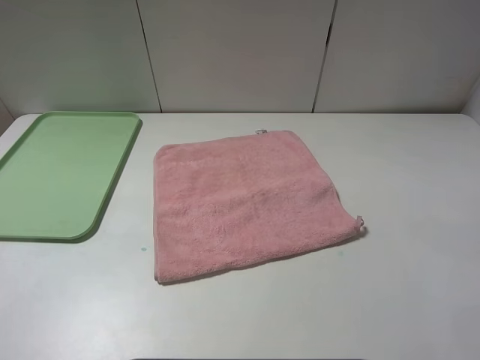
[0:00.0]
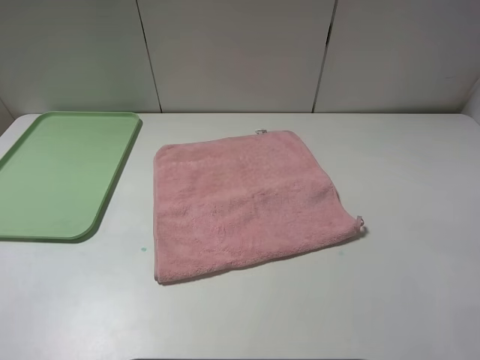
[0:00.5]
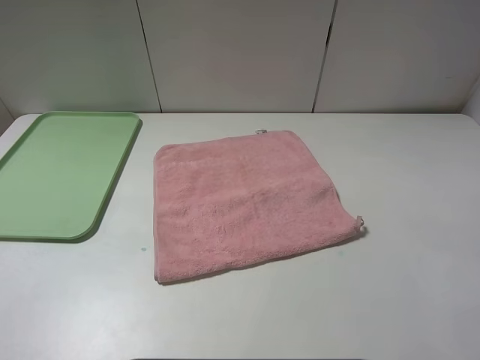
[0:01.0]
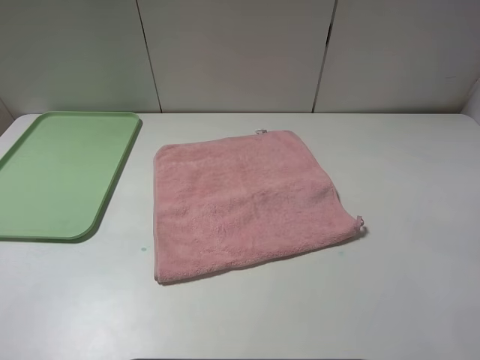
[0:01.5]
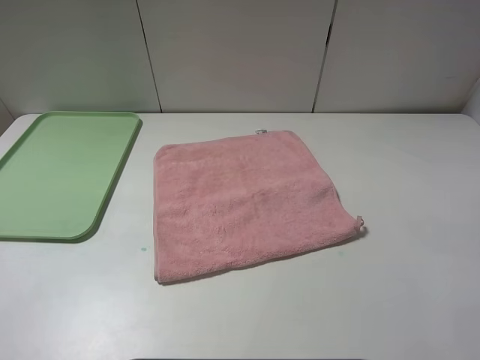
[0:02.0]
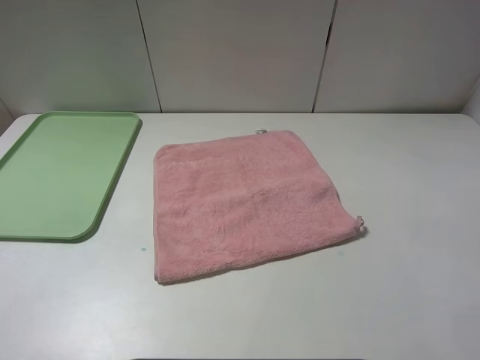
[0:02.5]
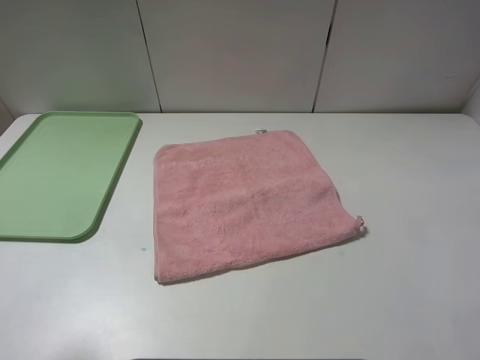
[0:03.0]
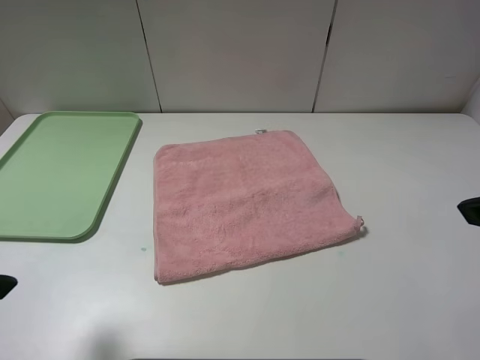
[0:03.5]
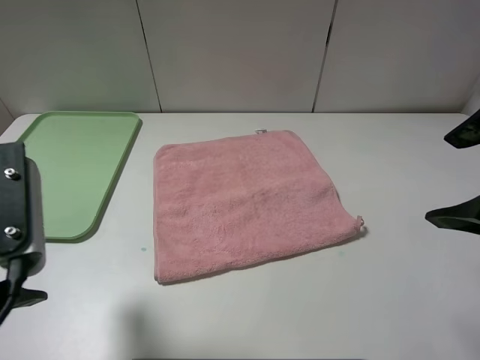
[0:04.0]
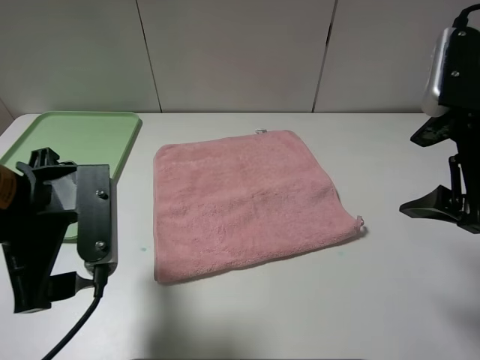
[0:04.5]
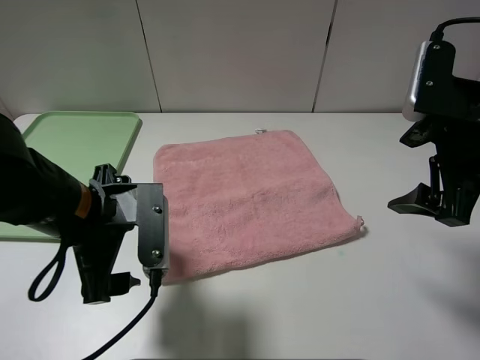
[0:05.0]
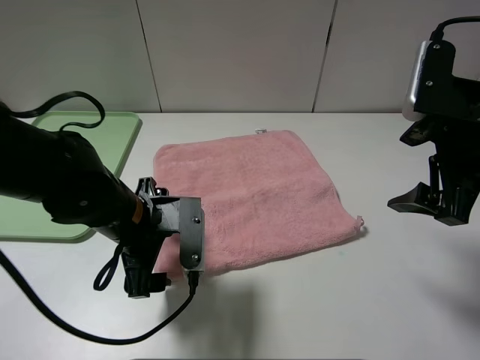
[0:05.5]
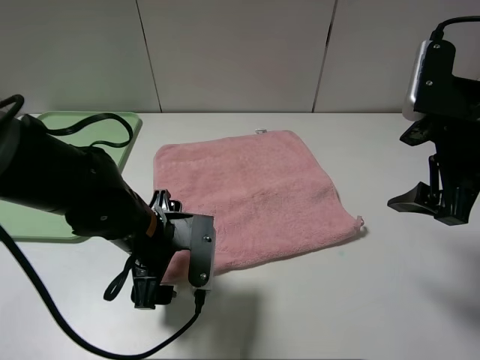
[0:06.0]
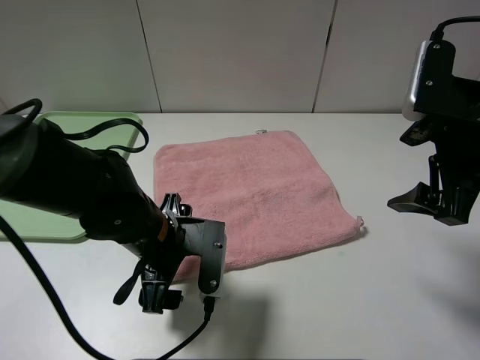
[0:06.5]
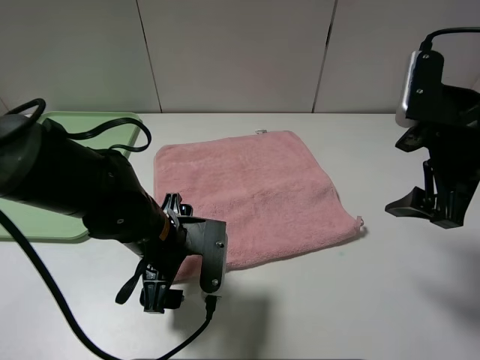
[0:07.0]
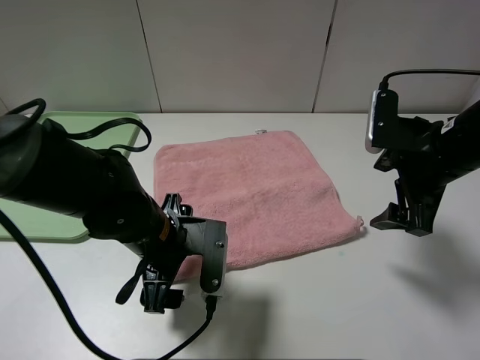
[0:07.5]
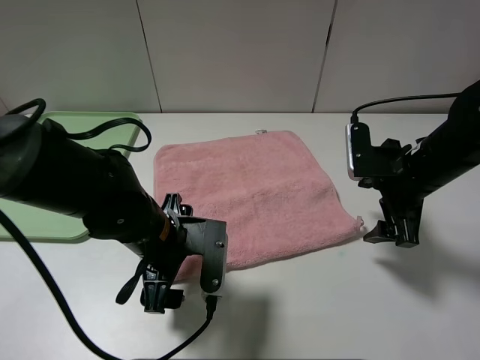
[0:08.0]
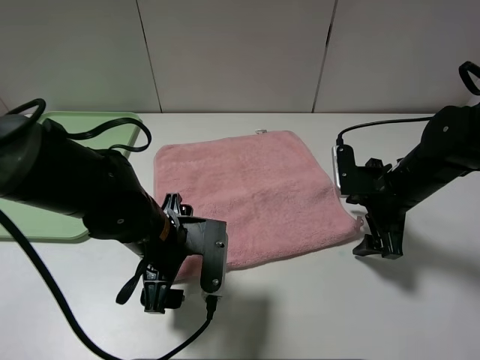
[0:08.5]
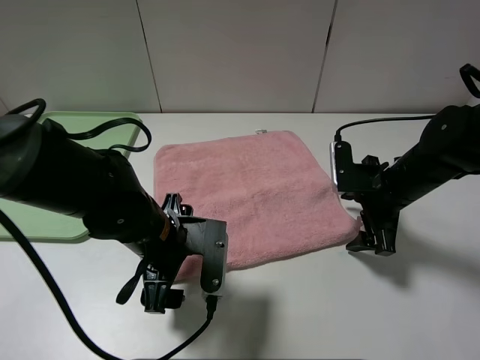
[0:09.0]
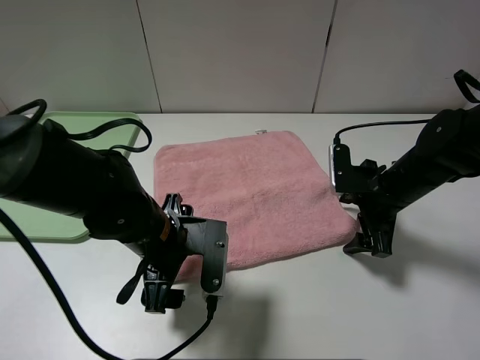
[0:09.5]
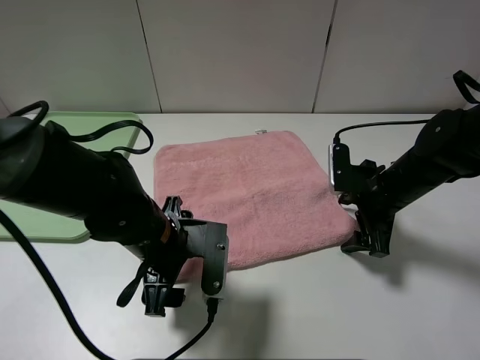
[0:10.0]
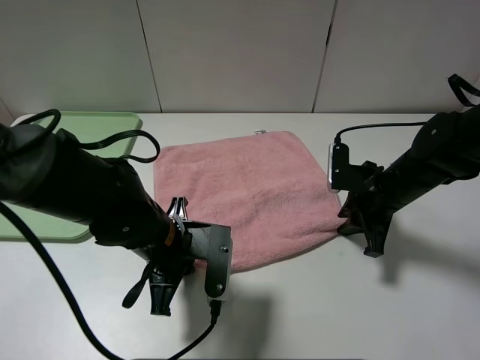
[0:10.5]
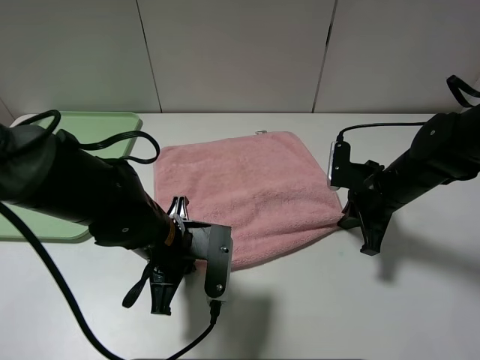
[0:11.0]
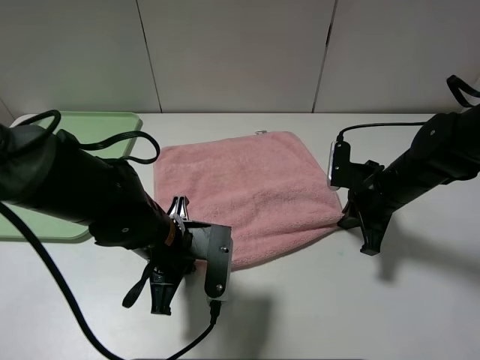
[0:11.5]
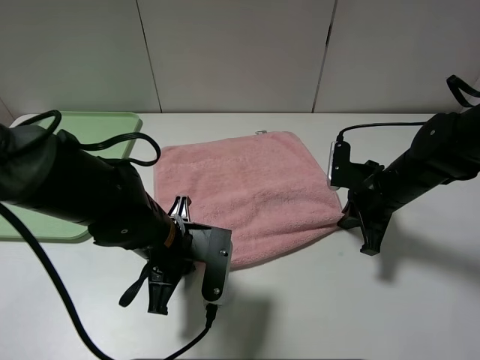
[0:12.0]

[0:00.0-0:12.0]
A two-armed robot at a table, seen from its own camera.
0:00.0 to 0:02.0: Both grippers stay about where they are.
0:02.0 to 0:04.0: The left gripper is displaced forward and to the right by approximately 15 cm, while the right gripper is displaced forward by some 15 cm.
0:04.0 to 0:06.0: The right gripper is displaced forward by about 5 cm. Meanwhile the left gripper is displaced downward, to the right and forward by roughly 20 cm.
0:06.0 to 0:08.0: The right gripper goes approximately 10 cm downward and forward.
0:08.0 to 0:10.0: The right gripper heads downward, covering about 5 cm.
0:10.0 to 0:12.0: The right gripper closes its fingers. The left gripper closes.

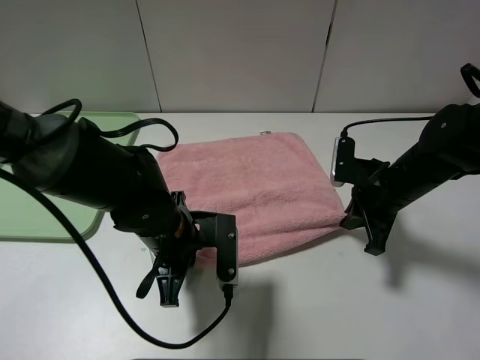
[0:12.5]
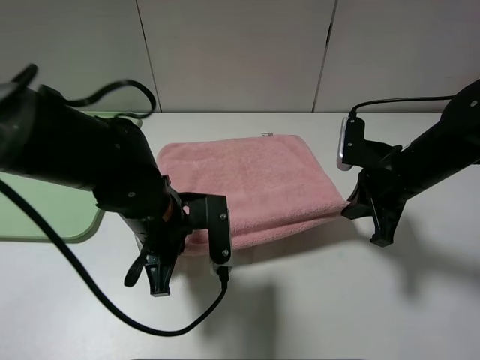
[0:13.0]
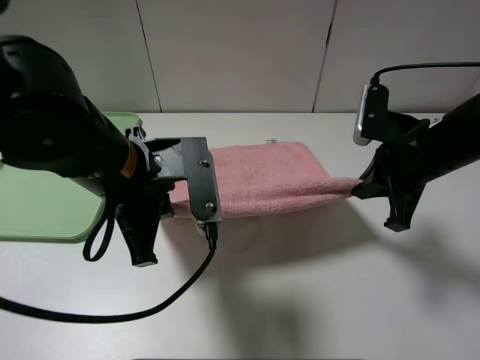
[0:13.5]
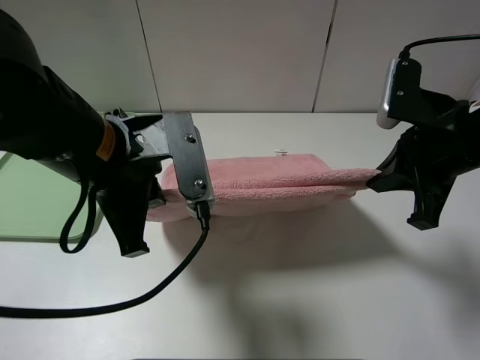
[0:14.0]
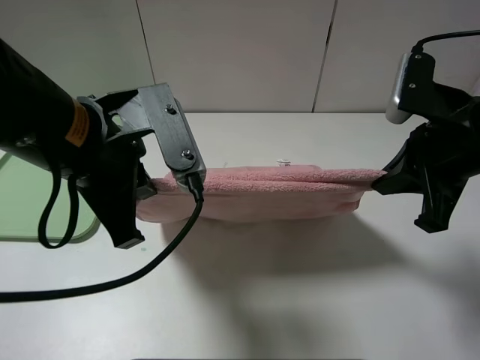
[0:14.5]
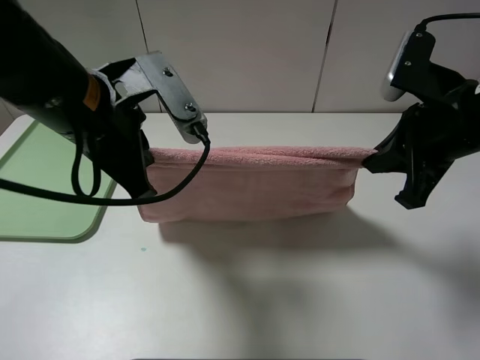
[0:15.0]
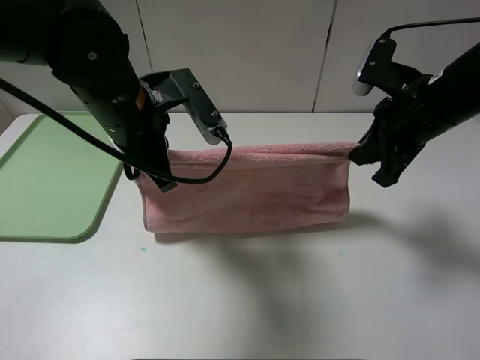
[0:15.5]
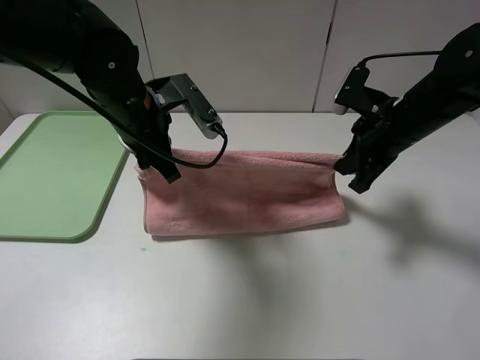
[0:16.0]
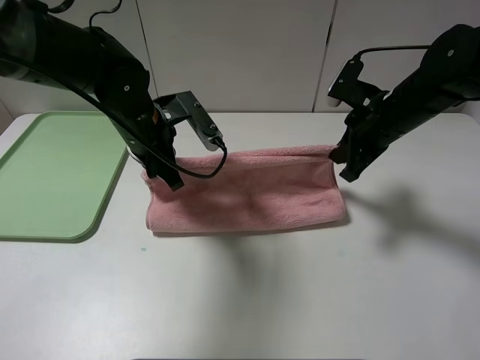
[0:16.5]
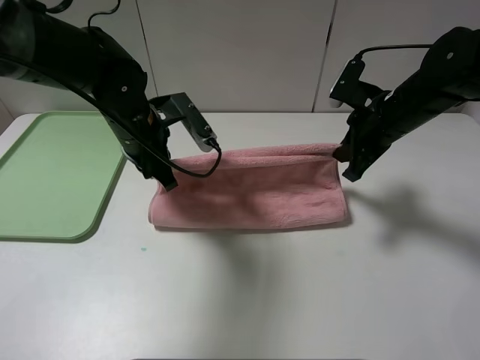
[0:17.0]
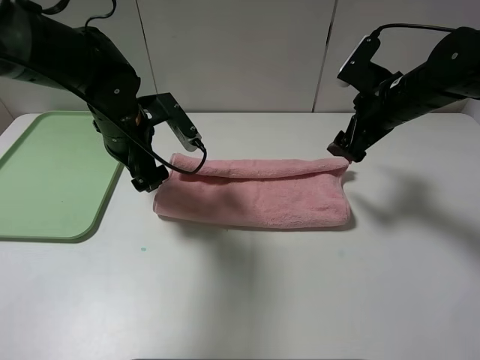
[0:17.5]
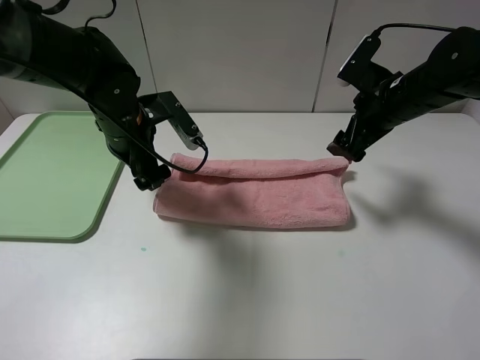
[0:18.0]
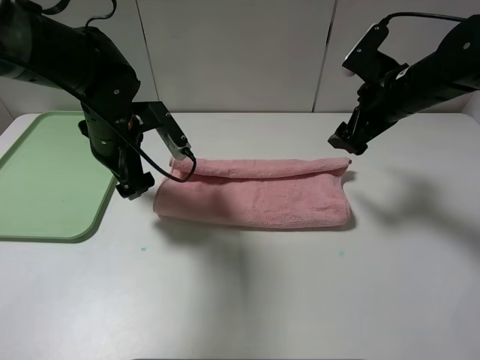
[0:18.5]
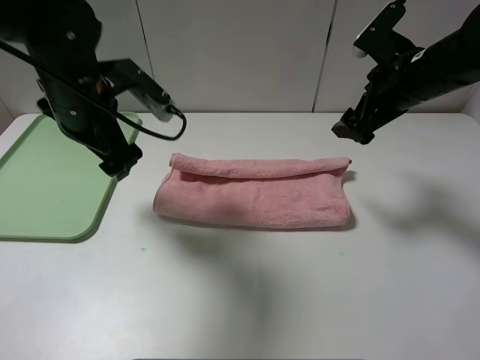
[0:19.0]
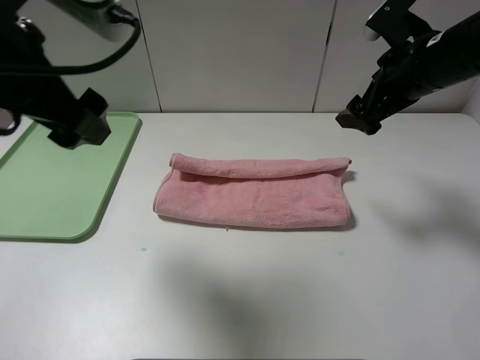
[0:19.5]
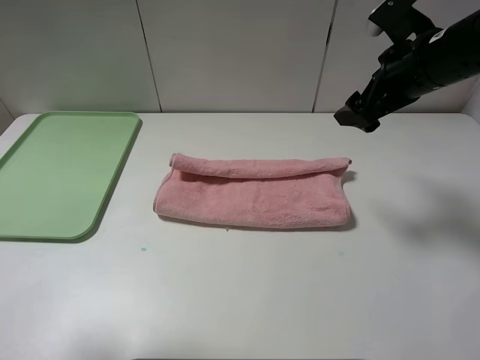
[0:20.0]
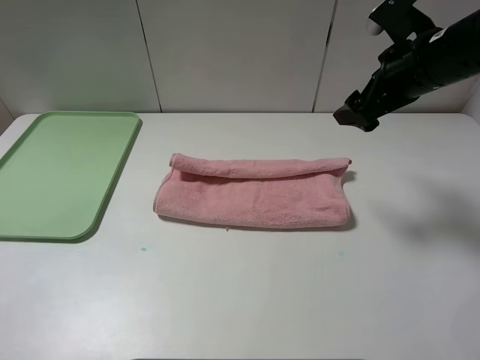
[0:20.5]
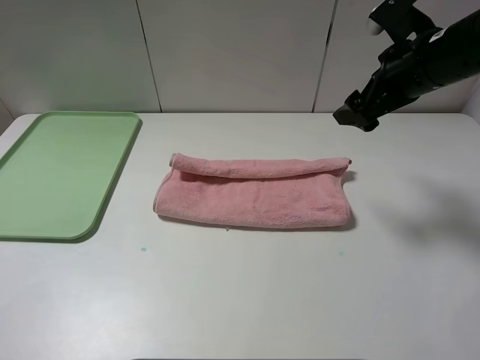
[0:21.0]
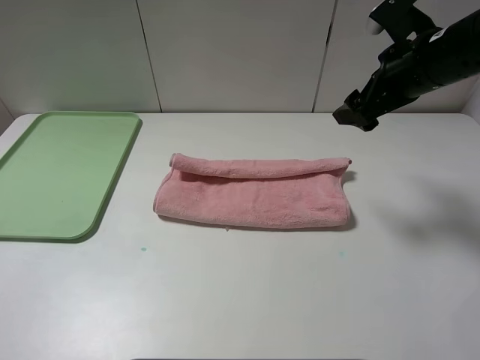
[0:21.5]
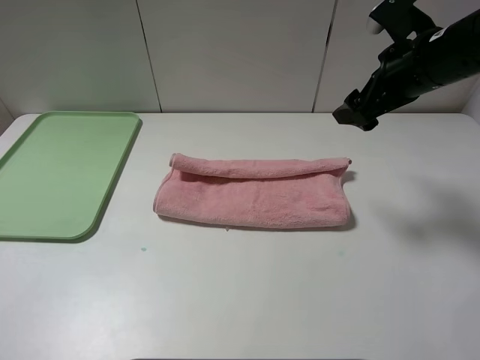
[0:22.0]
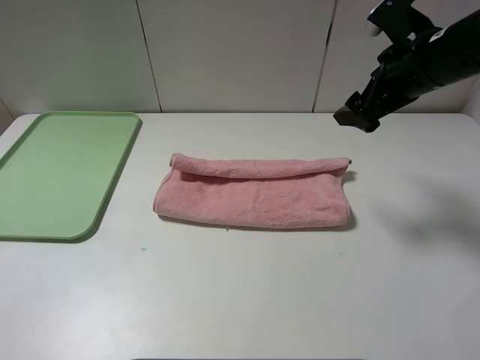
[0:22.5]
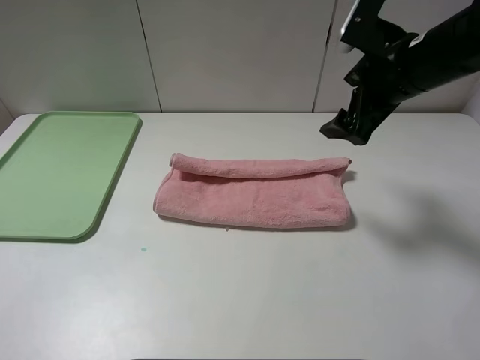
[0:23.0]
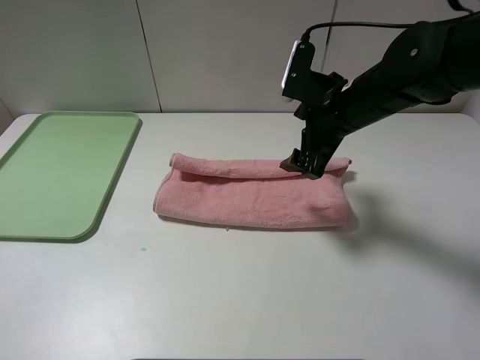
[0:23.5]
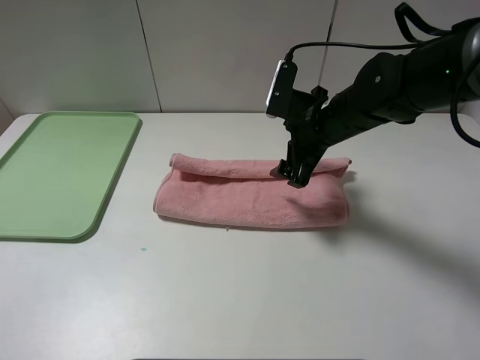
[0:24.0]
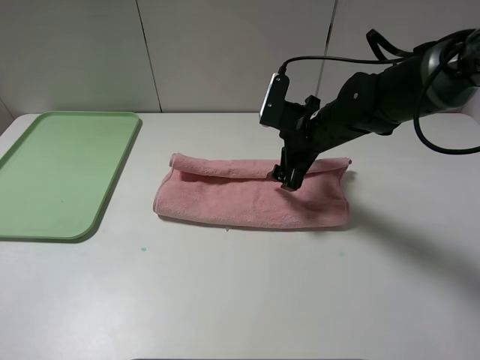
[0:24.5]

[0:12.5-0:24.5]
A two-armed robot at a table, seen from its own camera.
Step, 0:12.5 to 0:17.0: Fold the pink towel upwards.
0:12.5 to 0:14.5: The right gripper moves upward and backward, about 15 cm, while the left gripper goes some 15 cm upward.
0:14.5 to 0:16.5: Both grippers move forward and downward, some 15 cm.
0:16.5 to 0:18.5: The right gripper opens up. Meanwhile the left gripper opens its fingers.
0:18.5 to 0:20.5: The right gripper is displaced upward by approximately 5 cm. Meanwhile the left gripper is displaced backward, to the left and upward by roughly 35 cm.
0:22.5 to 0:24.5: The right gripper moves downward and to the left, some 15 cm.

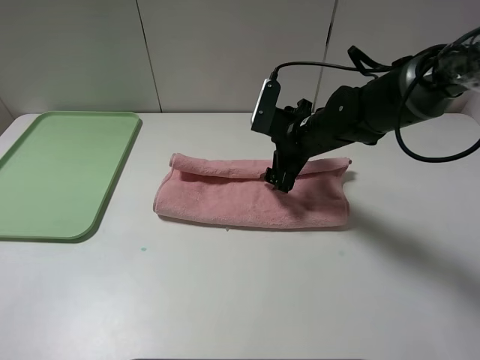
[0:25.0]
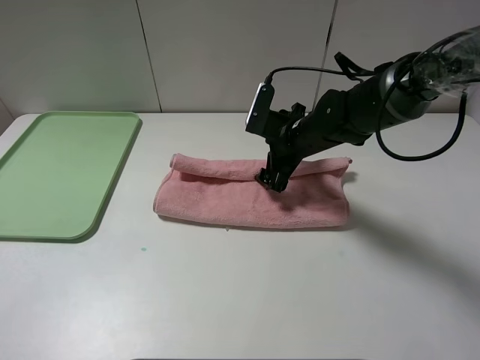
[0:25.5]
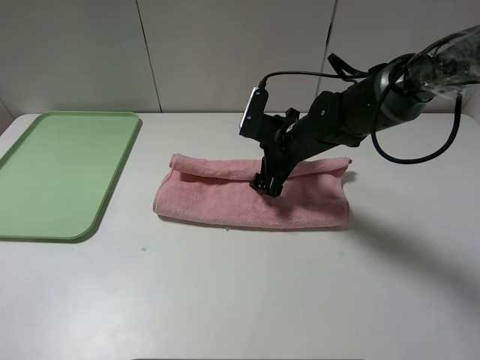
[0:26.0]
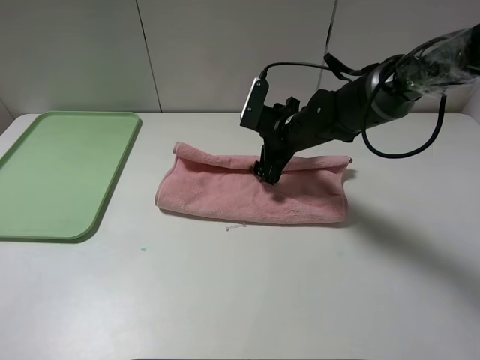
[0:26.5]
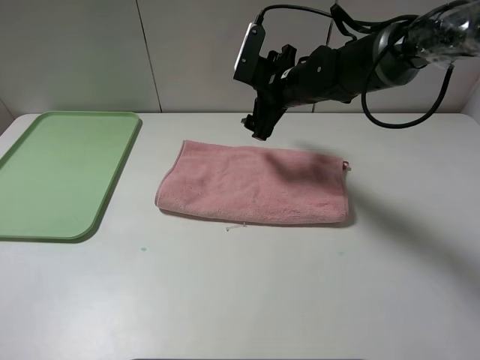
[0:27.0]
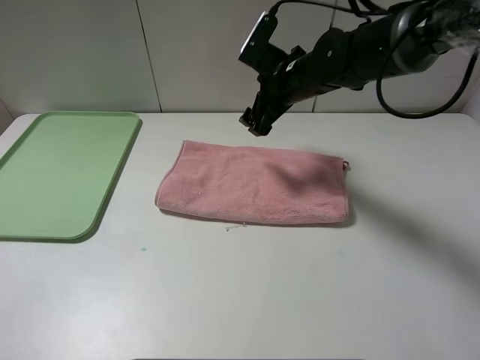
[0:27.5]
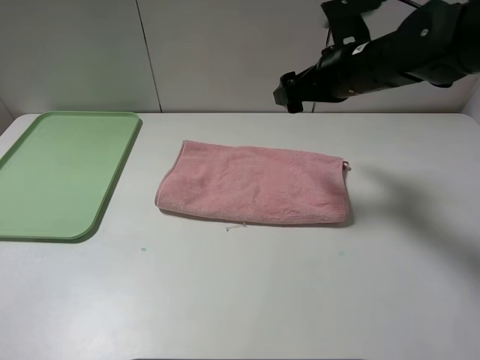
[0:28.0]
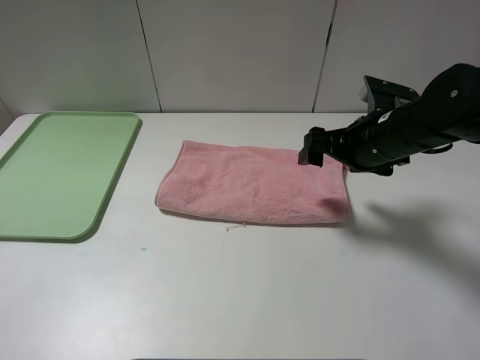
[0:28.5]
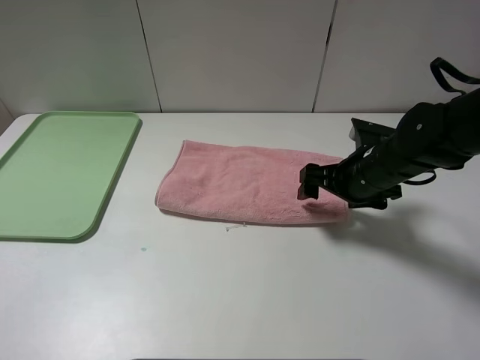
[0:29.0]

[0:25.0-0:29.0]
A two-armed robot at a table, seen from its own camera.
0:25.0 to 0:27.0: The right gripper travels forward by some 5 cm.
0:27.0 to 0:29.0: The right gripper shifts roughly 15 cm backward, to the right and downward.
